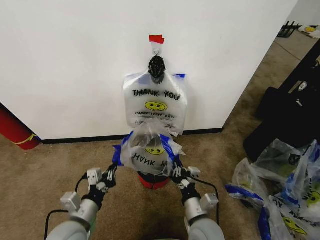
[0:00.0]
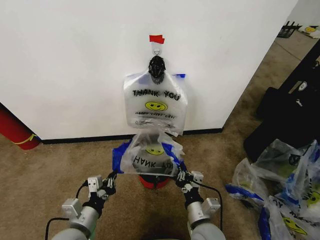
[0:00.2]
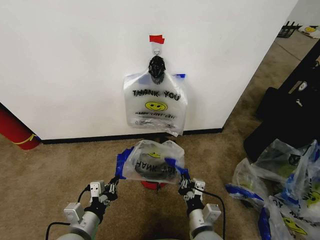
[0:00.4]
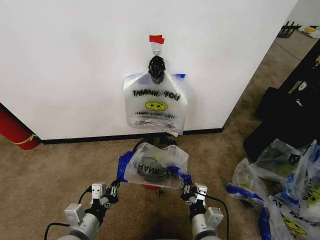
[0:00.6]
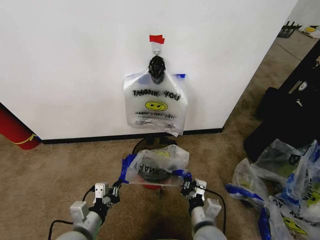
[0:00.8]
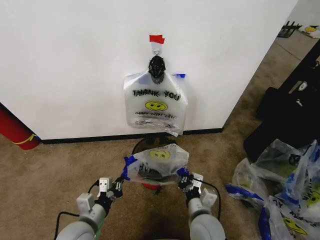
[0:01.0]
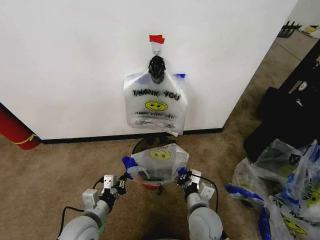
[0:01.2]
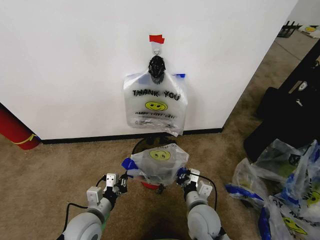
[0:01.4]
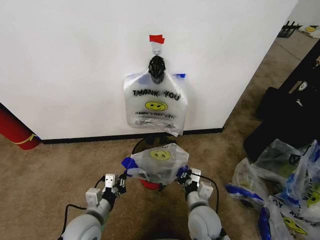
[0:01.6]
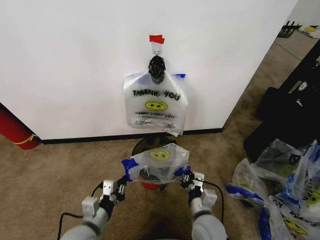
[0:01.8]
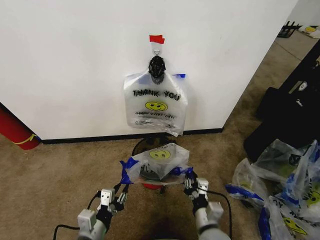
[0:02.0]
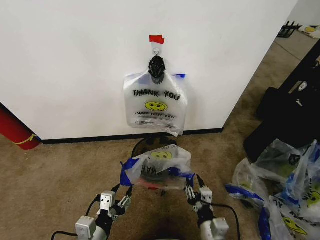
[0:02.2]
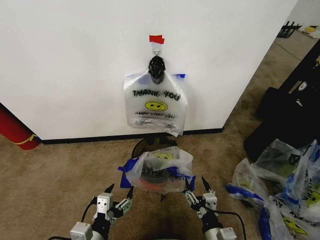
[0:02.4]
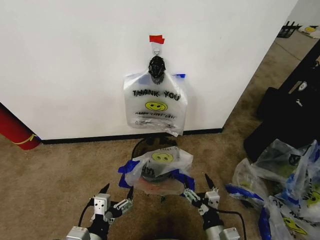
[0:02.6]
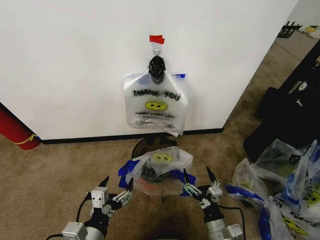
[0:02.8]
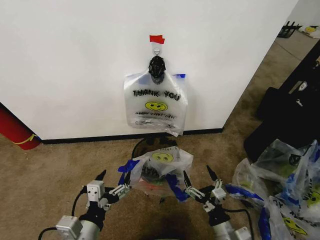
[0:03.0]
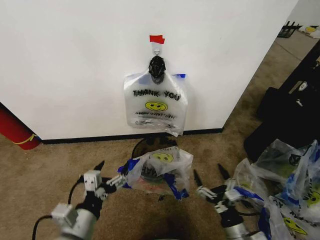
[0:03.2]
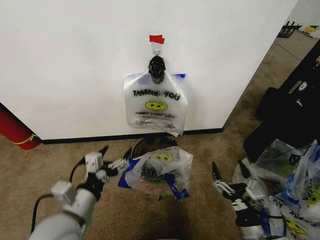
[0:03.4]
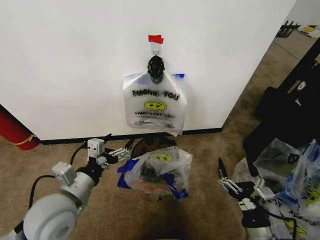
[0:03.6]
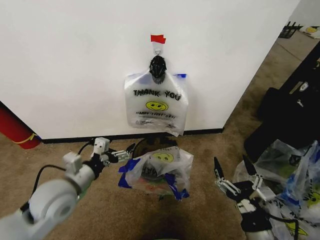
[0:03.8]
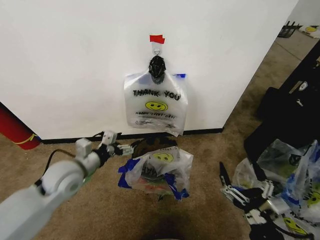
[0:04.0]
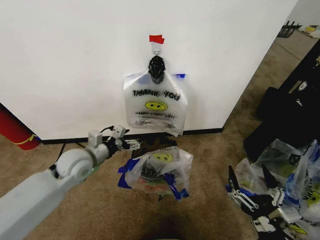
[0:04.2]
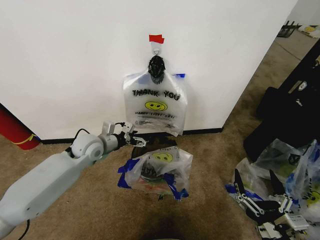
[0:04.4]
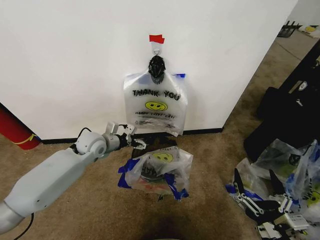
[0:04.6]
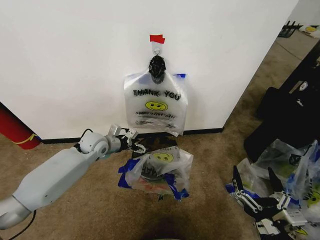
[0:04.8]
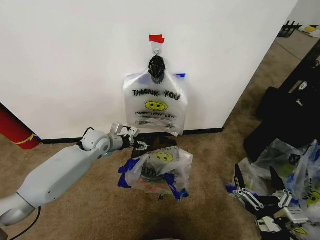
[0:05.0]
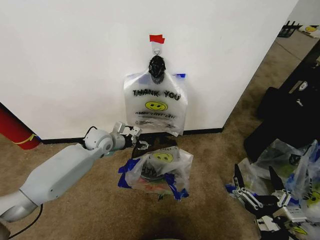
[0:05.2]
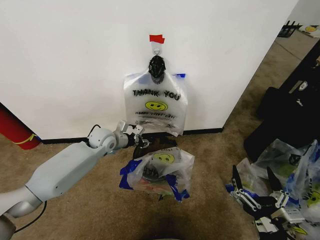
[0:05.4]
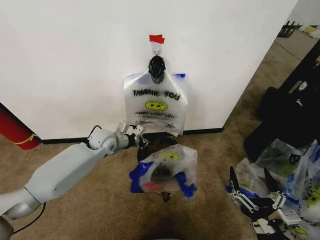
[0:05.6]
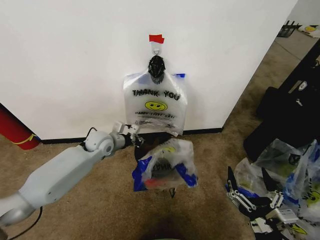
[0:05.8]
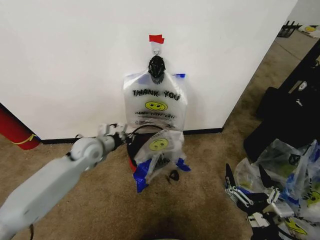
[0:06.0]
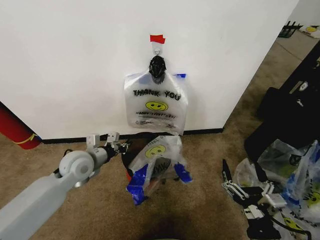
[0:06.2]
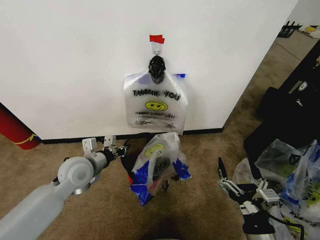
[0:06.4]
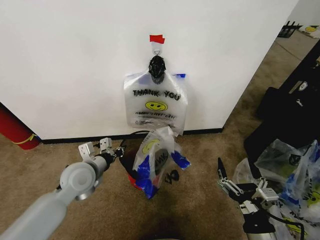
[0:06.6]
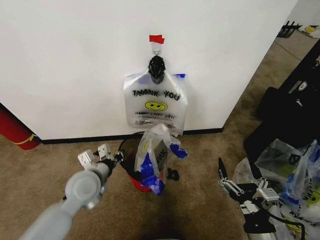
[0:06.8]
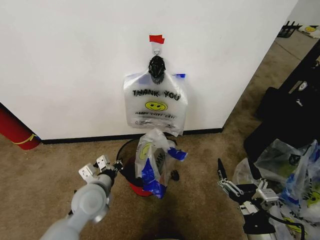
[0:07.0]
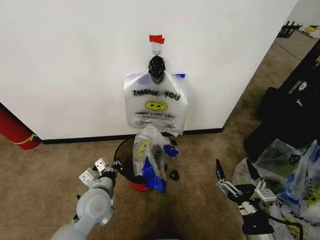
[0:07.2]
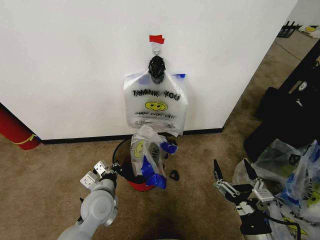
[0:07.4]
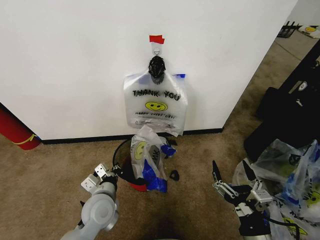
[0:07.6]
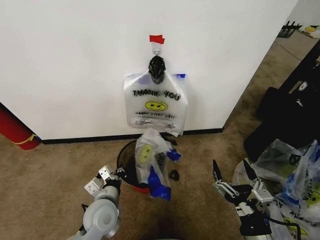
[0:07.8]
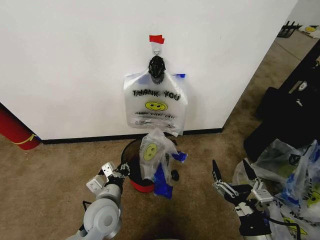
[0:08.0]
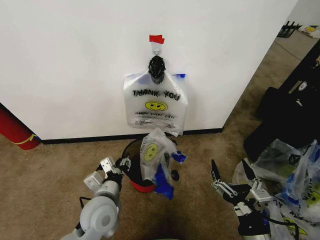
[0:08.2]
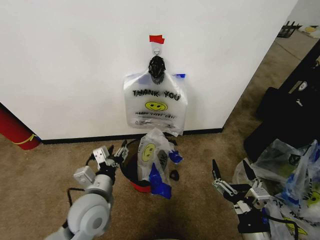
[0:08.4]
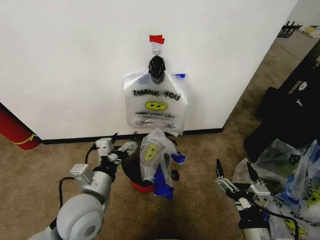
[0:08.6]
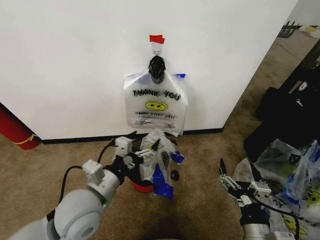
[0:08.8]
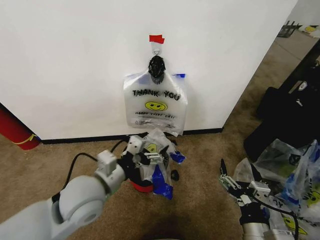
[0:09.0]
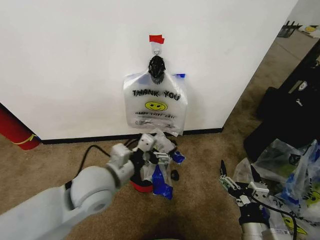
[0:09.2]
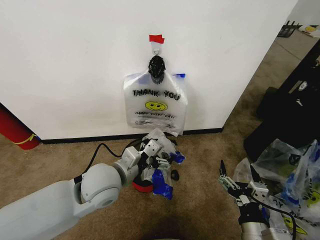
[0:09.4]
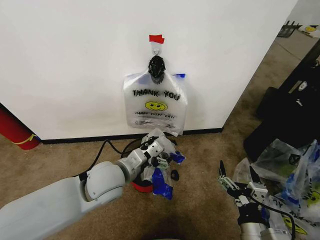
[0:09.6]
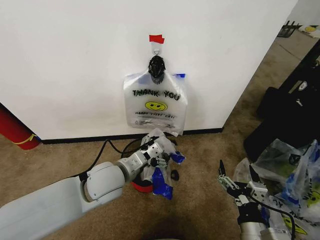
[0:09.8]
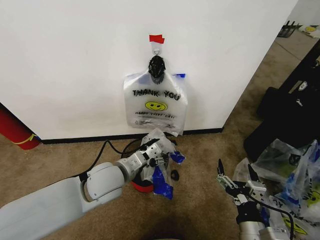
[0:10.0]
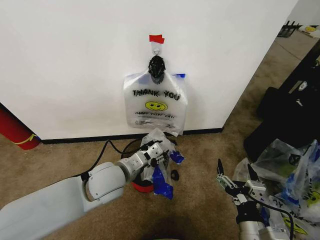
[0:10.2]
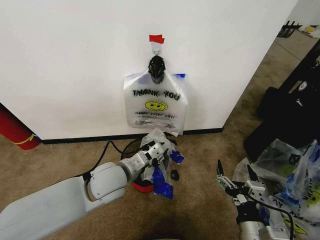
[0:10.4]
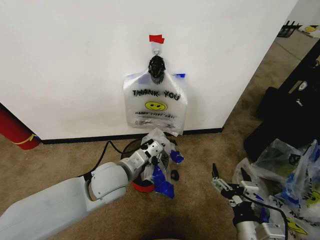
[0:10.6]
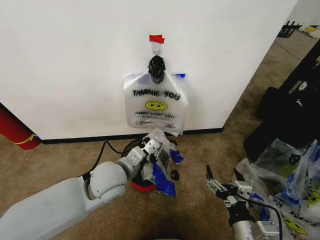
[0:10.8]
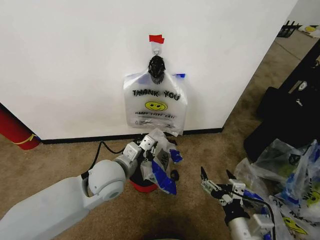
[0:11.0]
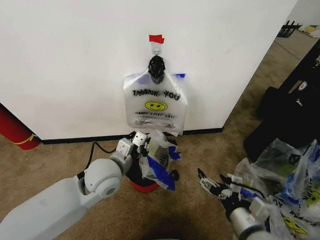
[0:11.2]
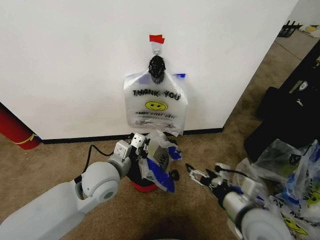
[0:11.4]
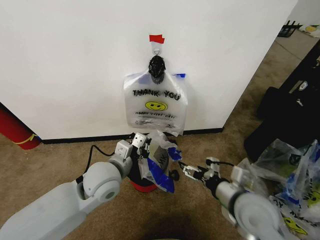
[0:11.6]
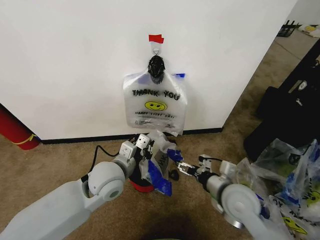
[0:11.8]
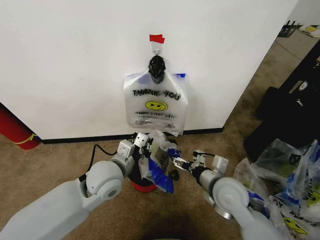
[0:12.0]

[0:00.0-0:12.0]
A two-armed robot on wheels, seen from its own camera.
Task of the whole recording: Pick up the garbage bag from the wall and place it over the trash bin.
0:00.0 to 0:01.6: The left gripper changes place by about 5 cm.
0:01.6 to 0:03.0: The right gripper travels backward and to the right by roughly 15 cm, and opens its fingers. Meanwhile the left gripper shifts approximately 15 cm backward and upward, and opens up.
0:03.0 to 0:04.4: The right gripper heads upward and backward, covering approximately 15 cm. The left gripper is displaced forward by approximately 30 cm.
0:04.4 to 0:06.0: The left gripper moves some 5 cm forward and comes back, and closes up.
0:06.0 to 0:07.6: The left gripper heads backward, downward and to the right, covering about 20 cm.
0:07.6 to 0:09.0: The left gripper is displaced upward by about 15 cm, and opens up.
0:09.0 to 0:10.4: The left gripper heads forward, covering about 5 cm, and closes up.
0:10.4 to 0:12.0: The right gripper is displaced forward by approximately 15 cm.

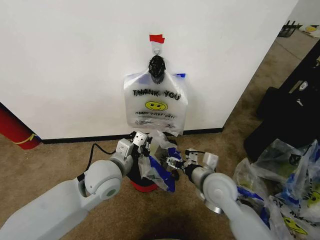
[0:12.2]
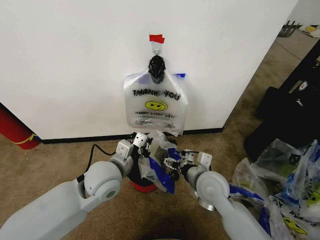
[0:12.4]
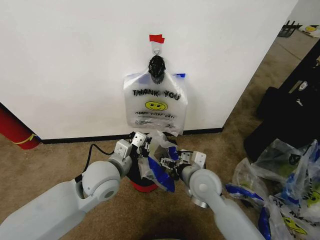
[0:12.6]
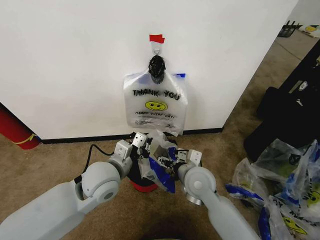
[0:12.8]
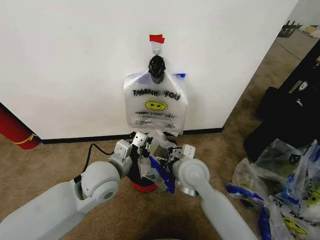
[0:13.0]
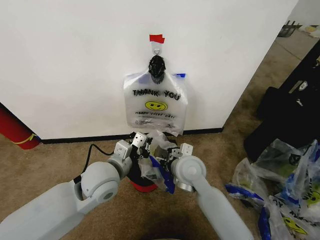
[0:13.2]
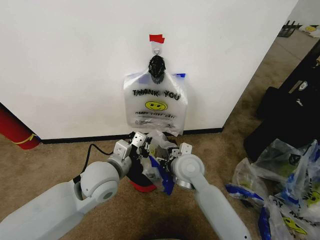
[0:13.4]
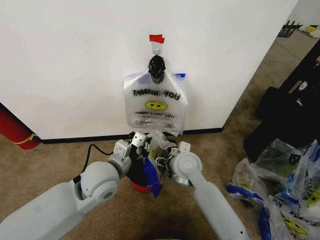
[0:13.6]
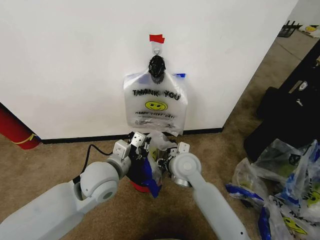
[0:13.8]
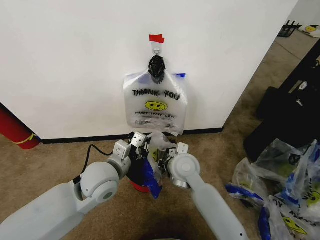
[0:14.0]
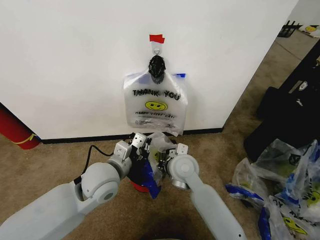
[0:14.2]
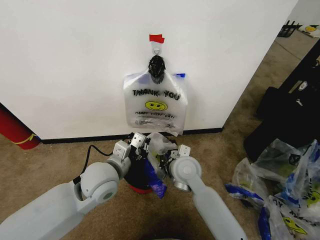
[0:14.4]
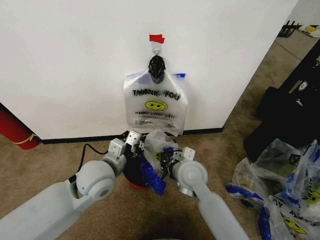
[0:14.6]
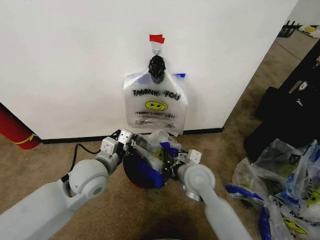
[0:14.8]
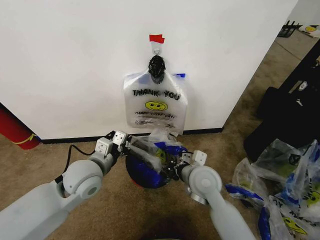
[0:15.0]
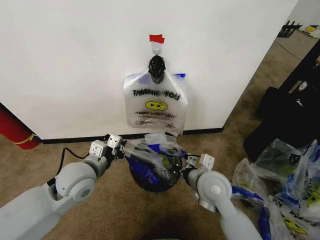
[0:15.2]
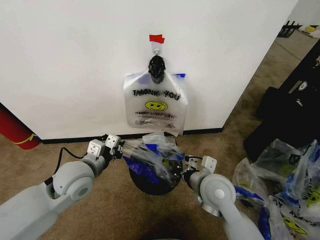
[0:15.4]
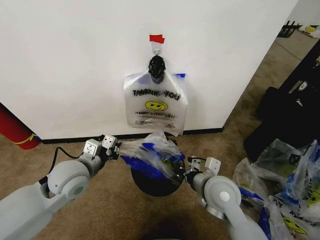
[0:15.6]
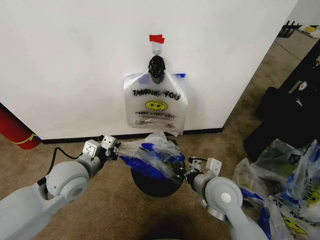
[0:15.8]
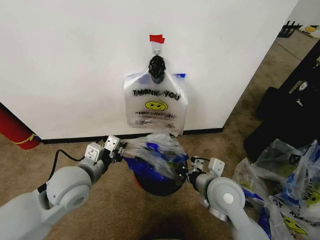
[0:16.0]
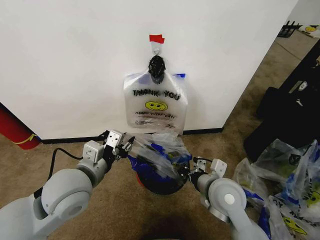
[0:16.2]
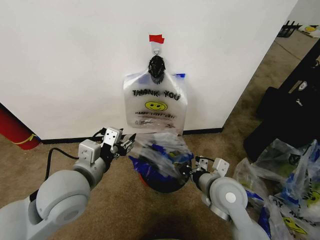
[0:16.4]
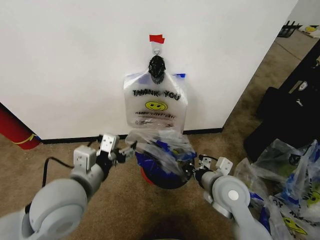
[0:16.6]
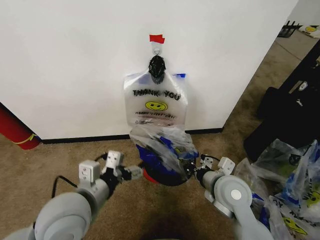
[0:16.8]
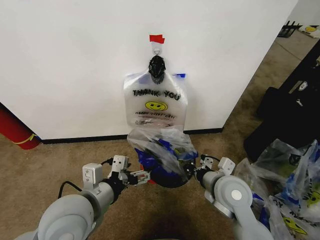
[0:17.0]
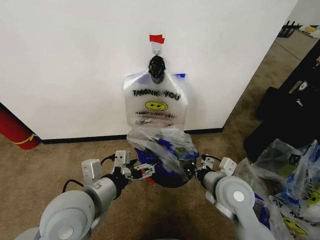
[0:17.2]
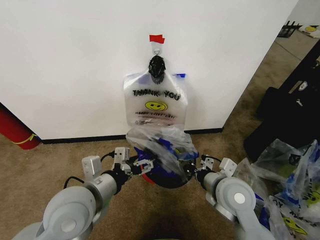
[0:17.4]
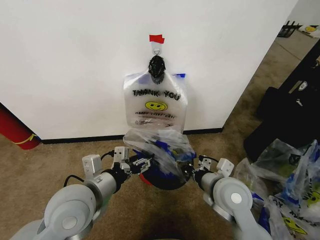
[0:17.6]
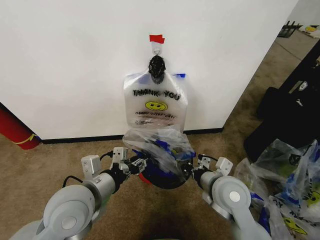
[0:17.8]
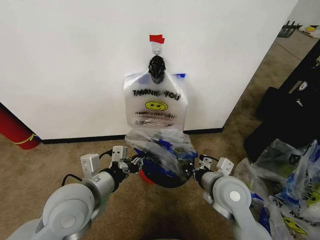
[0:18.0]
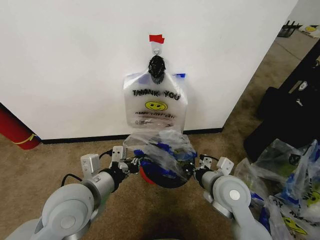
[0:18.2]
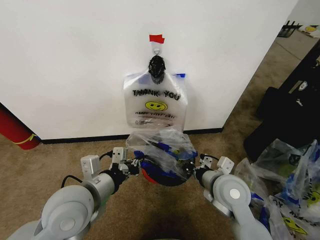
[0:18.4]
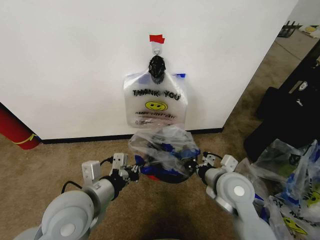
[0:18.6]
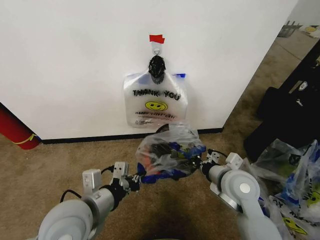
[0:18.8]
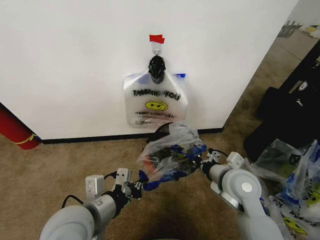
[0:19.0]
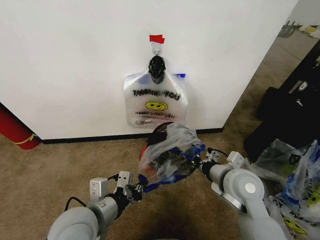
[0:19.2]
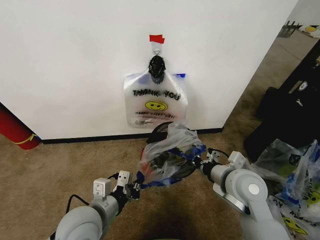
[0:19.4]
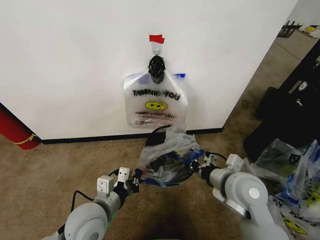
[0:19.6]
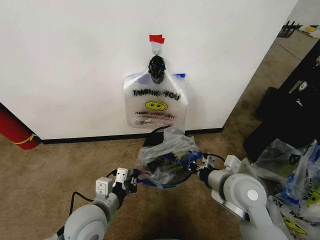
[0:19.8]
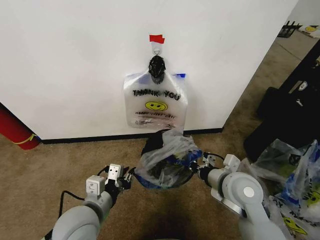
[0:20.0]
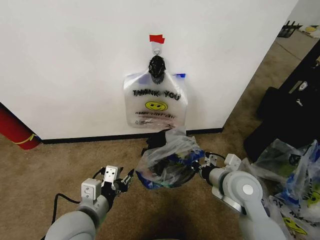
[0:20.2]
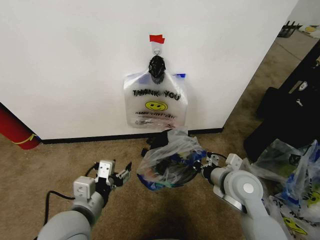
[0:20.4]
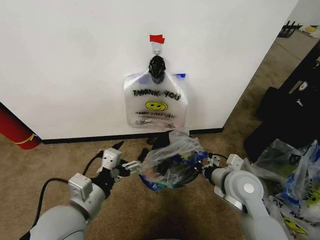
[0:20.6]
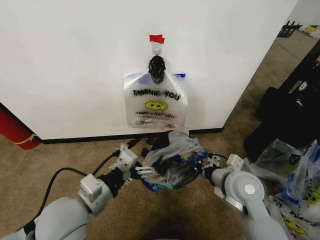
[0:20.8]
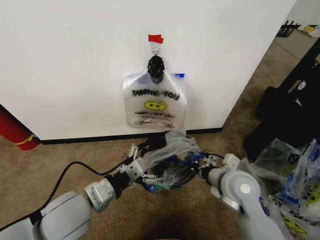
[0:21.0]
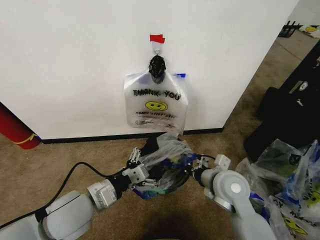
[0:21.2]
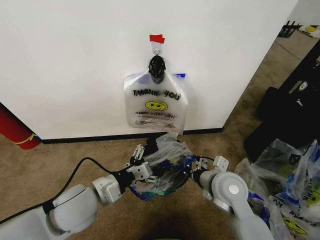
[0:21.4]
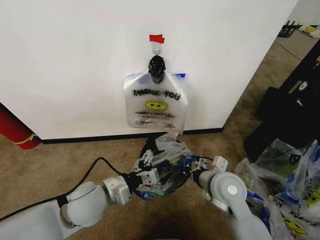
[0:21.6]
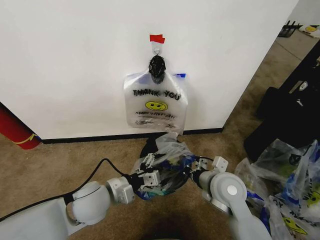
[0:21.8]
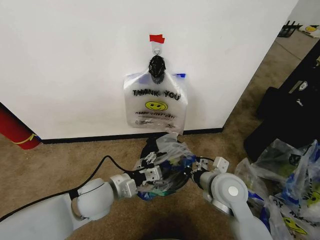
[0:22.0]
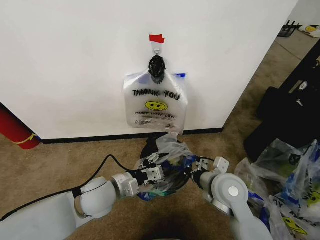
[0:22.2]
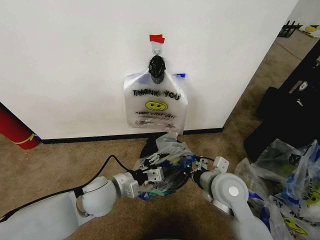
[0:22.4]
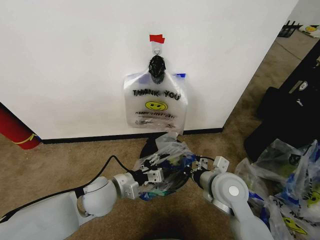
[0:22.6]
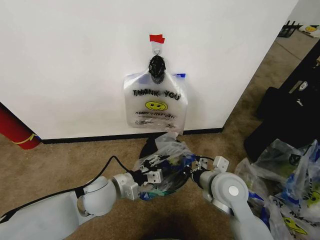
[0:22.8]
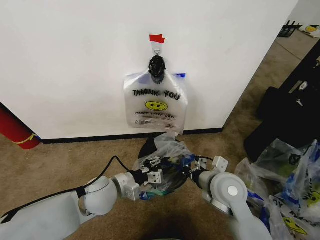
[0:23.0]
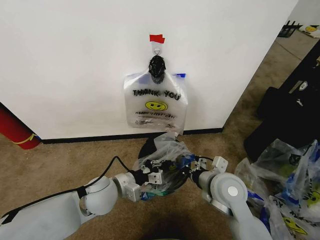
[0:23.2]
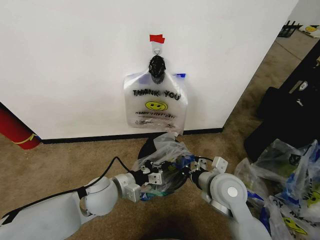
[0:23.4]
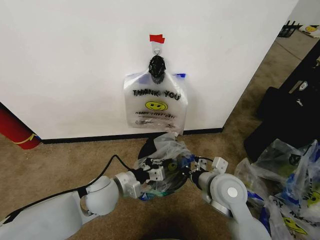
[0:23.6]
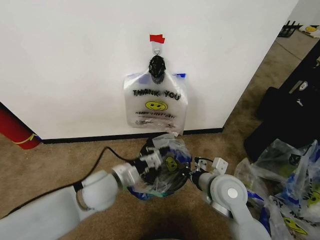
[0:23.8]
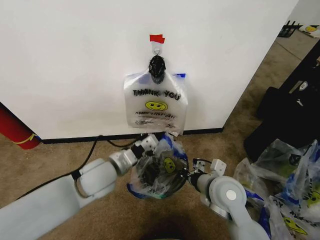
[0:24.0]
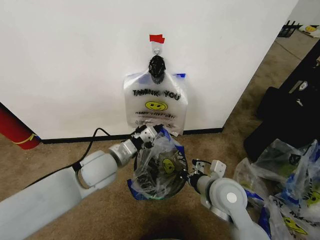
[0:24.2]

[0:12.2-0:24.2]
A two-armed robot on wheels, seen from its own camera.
Task of the whole recording: Pick up the garbage bag from the wall and place it over the trash bin.
0:12.2 to 0:13.8: The right gripper moves to the left and forward, roughly 10 cm, and closes up.
0:13.8 to 0:15.2: The right gripper travels to the right and backward by some 10 cm, and closes its fingers. The left gripper heads to the left, covering some 5 cm.
0:15.2 to 0:16.6: The left gripper is displaced backward and upward by some 10 cm, and opens up.
0:16.6 to 0:18.2: The left gripper closes up.
0:18.2 to 0:19.8: The left gripper travels downward by some 10 cm.
0:19.8 to 0:21.2: The left gripper opens.
0:21.2 to 0:22.6: The left gripper heads forward and downward, covering some 10 cm.
0:22.6 to 0:24.2: The left gripper travels upward by roughly 5 cm, and closes its fingers.
